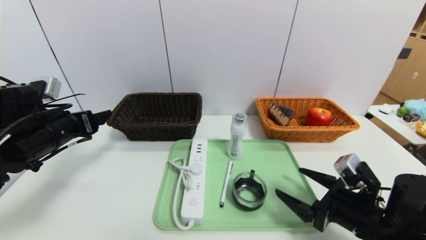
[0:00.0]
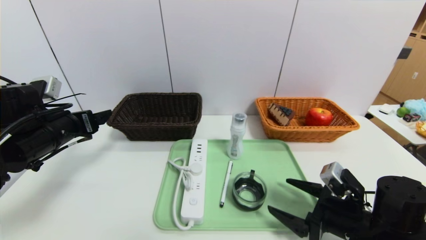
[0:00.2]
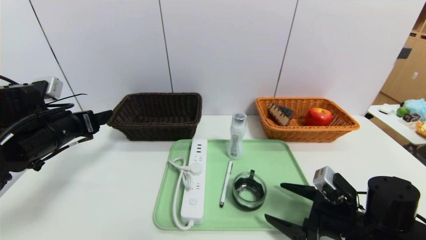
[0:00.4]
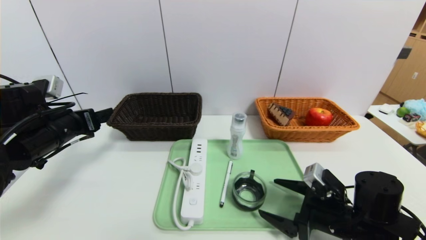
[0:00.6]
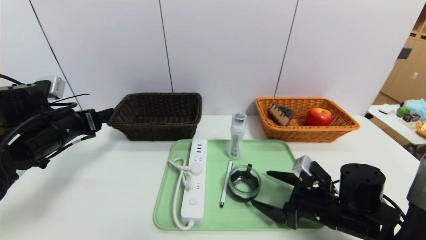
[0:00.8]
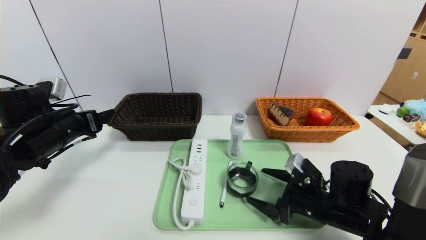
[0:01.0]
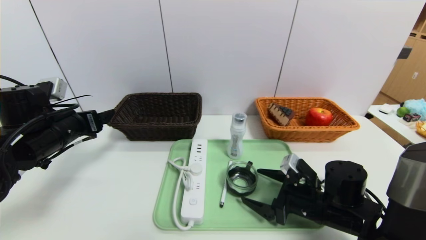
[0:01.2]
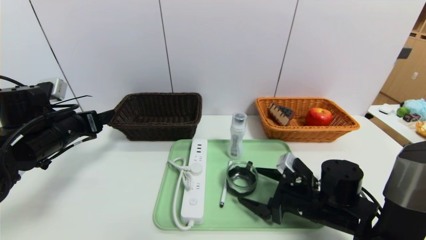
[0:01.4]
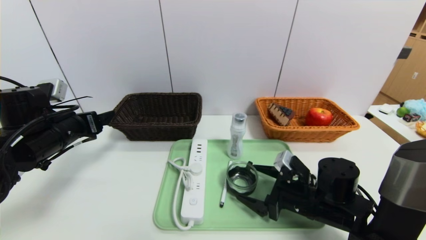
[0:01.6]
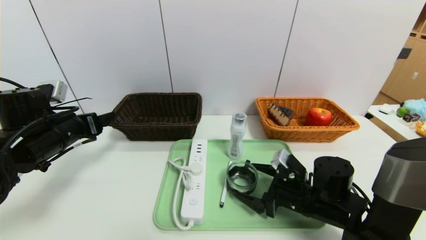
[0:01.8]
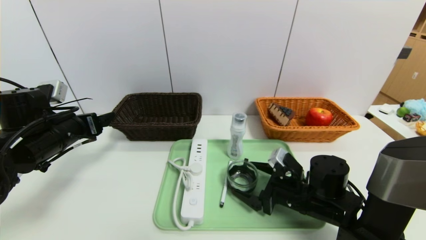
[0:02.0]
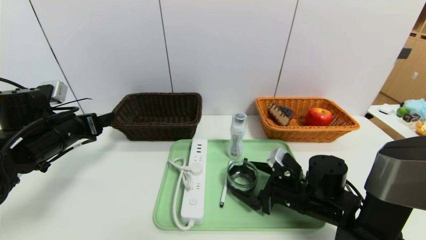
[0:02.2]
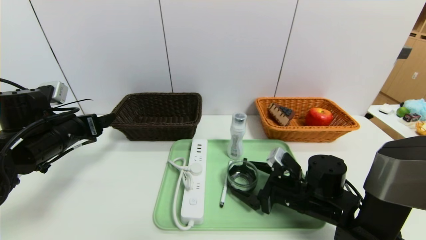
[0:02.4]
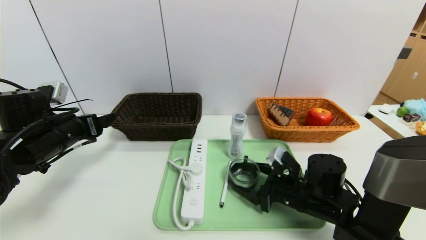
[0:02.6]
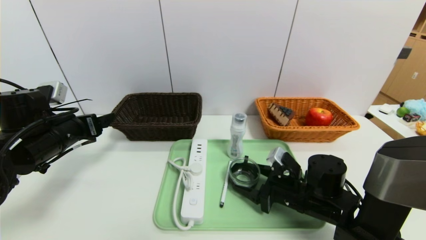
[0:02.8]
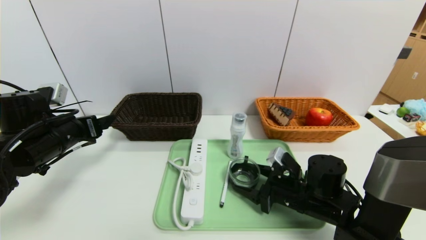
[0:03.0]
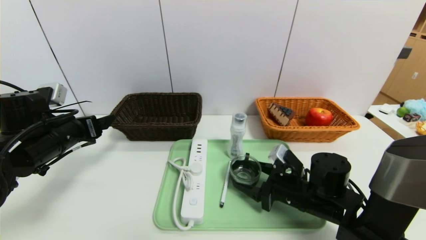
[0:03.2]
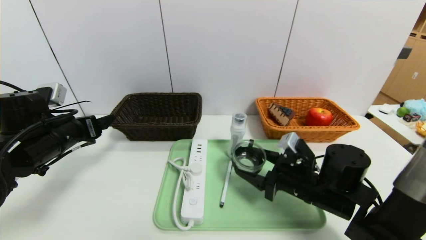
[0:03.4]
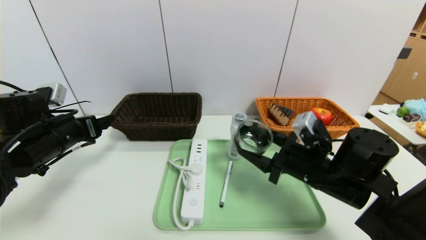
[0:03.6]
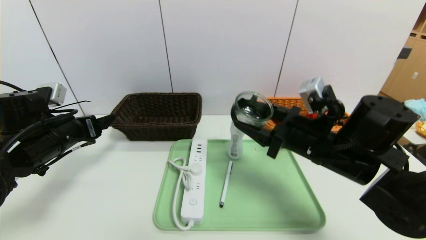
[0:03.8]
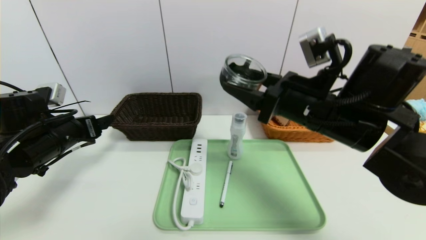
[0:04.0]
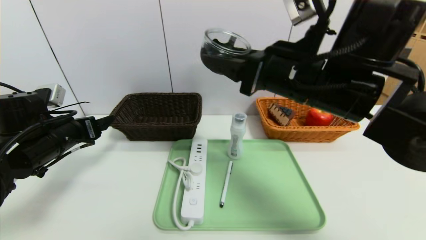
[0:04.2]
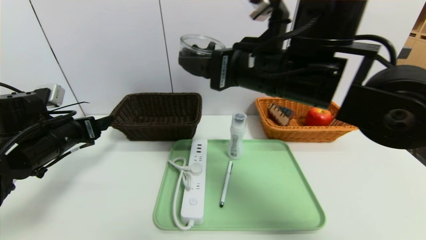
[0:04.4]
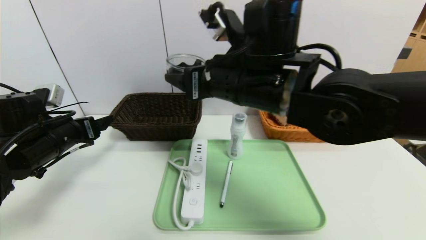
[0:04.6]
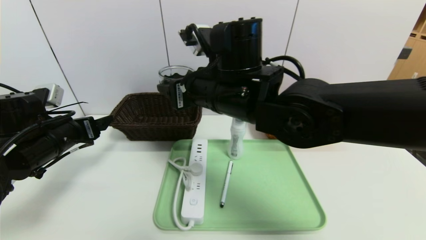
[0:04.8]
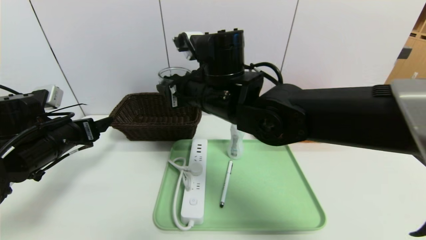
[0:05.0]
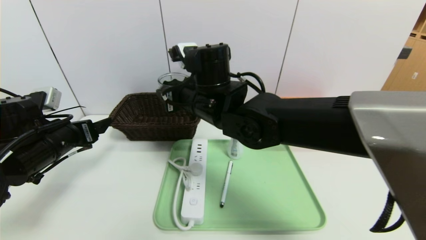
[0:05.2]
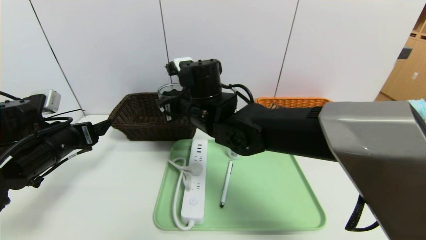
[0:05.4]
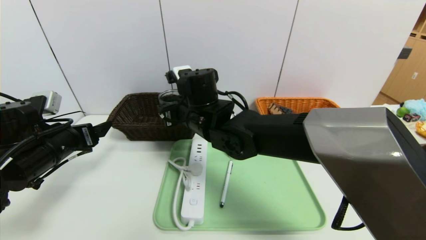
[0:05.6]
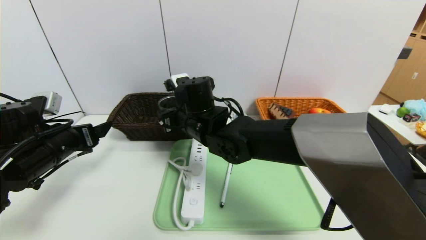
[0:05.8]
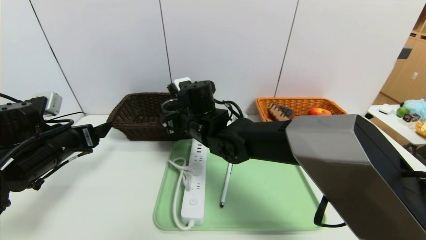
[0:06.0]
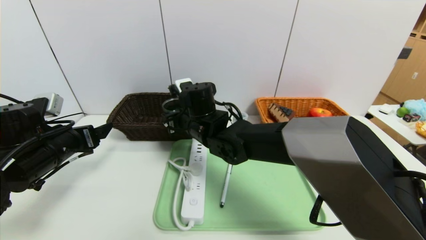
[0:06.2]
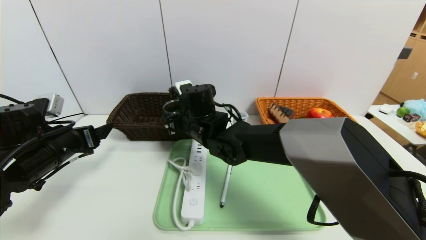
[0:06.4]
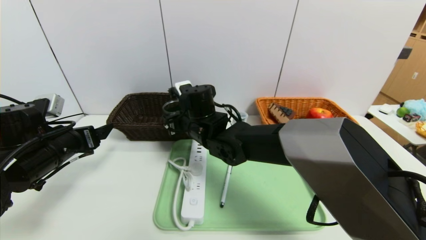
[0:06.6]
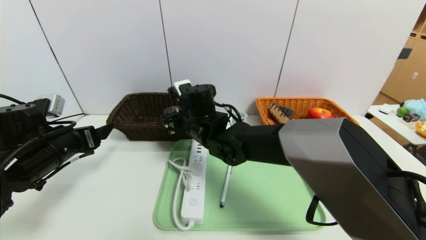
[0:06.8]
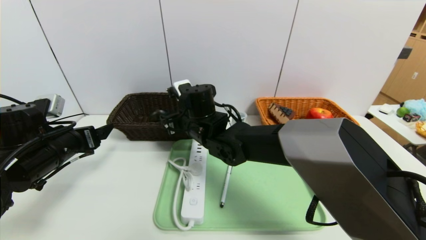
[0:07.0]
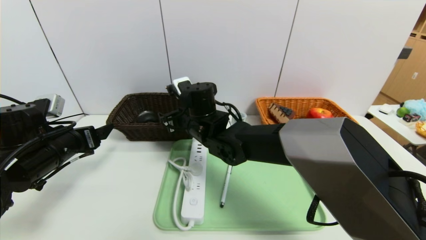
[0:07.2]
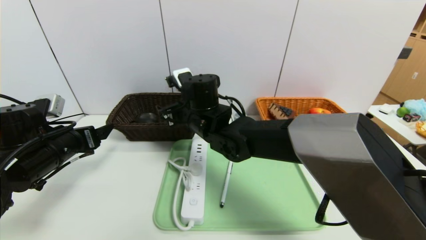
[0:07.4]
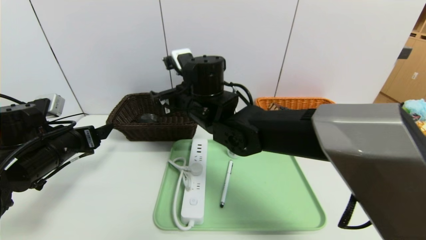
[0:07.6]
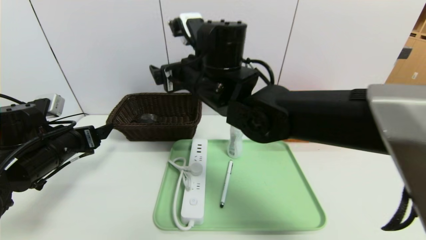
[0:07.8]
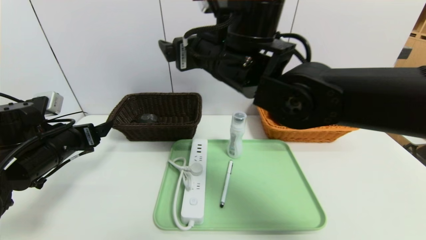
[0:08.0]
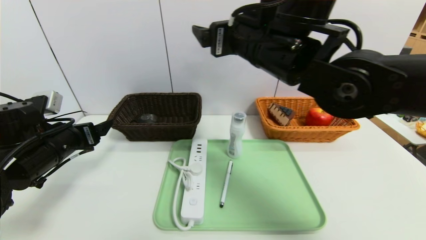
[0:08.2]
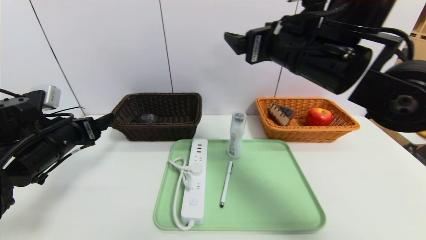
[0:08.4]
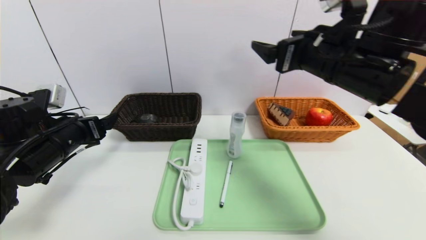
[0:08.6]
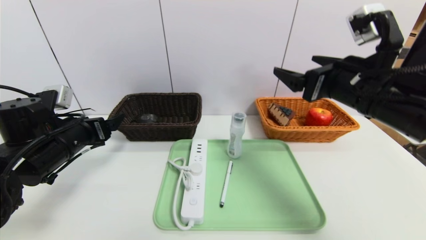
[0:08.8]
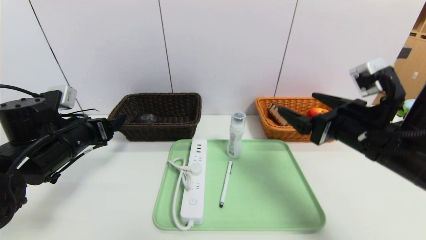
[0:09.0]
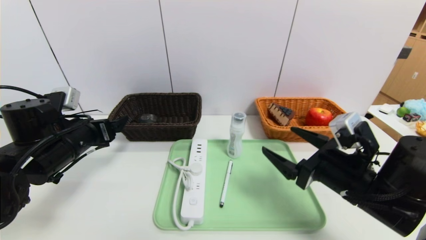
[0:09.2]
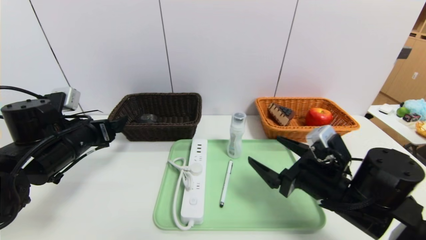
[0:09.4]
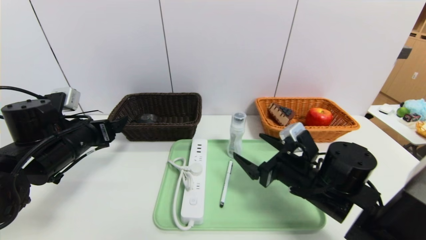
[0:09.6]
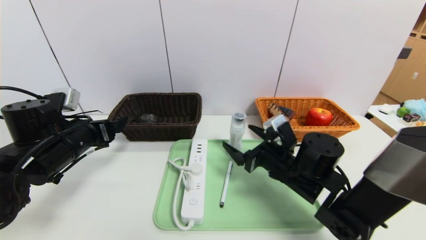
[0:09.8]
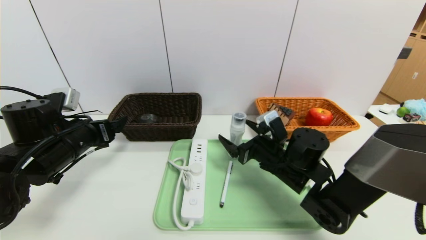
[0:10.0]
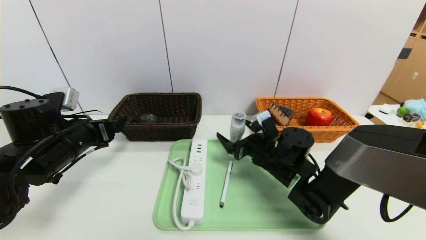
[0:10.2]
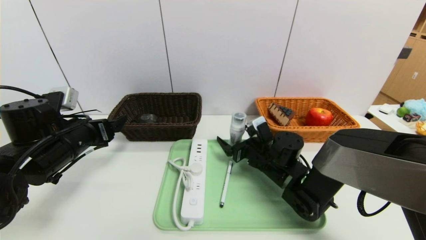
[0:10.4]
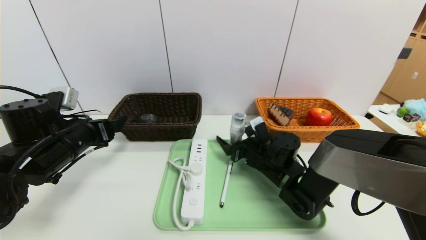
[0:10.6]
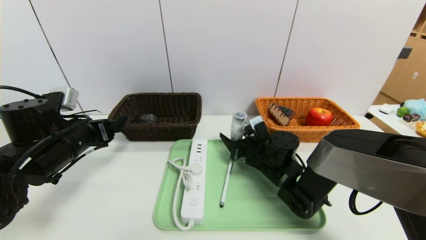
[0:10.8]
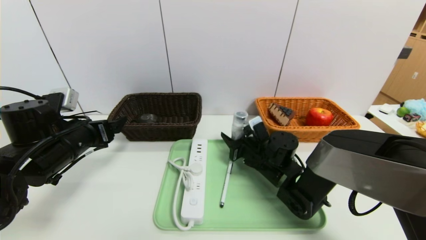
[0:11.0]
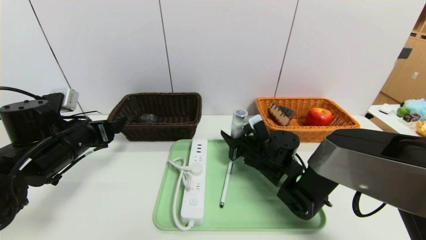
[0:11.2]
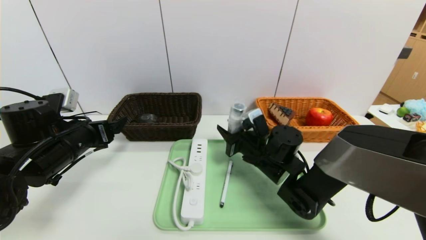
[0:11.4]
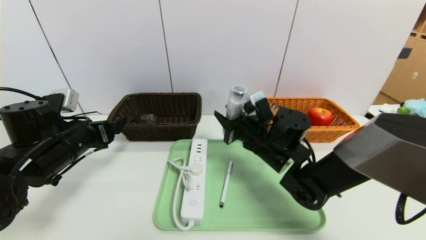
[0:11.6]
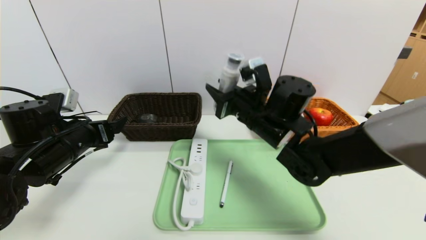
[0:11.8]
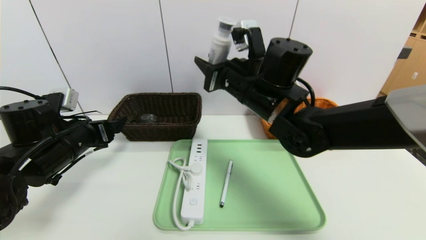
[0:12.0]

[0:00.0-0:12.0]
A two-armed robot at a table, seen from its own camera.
Task of the whole recording: place the food in the right basket with the right gripper, and place the non food items in the left basket with the left gripper.
0:00.0 to 0:01.6: The right gripper heads forward and to the left, covering approximately 10 cm.
0:01.6 to 0:03.0: The right gripper closes up.
0:03.0 to 0:04.4: The right gripper heads upward, covering some 25 cm.
0:04.4 to 0:06.0: The right gripper moves downward, to the left and forward, about 20 cm.
0:06.0 to 0:07.6: The right gripper goes approximately 5 cm upward, and opens its fingers.
0:07.6 to 0:09.0: The right gripper shifts about 30 cm to the right and backward.
0:09.0 to 0:10.4: The right gripper goes about 20 cm downward, forward and to the left.
0:10.4 to 0:12.0: The right gripper is displaced upward by approximately 20 cm, and closes.

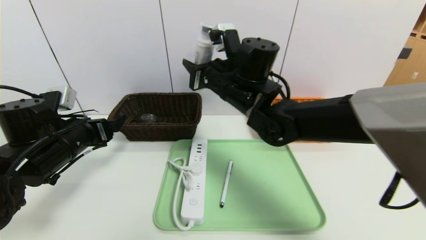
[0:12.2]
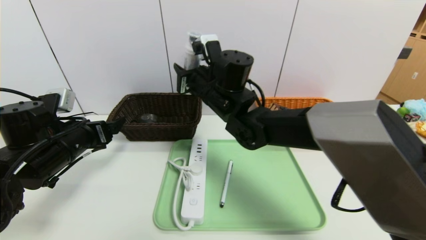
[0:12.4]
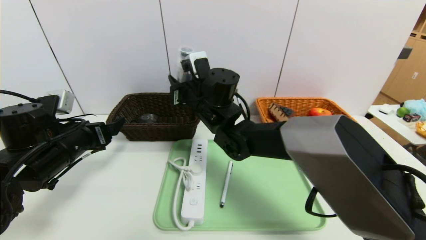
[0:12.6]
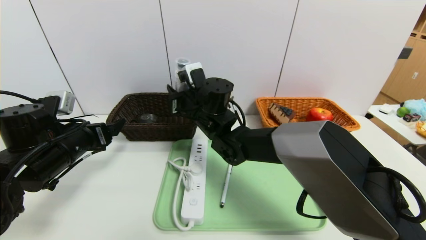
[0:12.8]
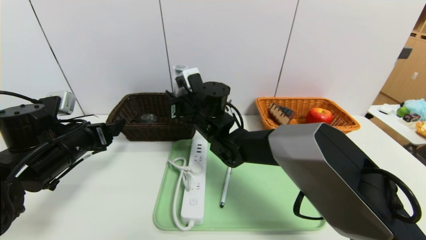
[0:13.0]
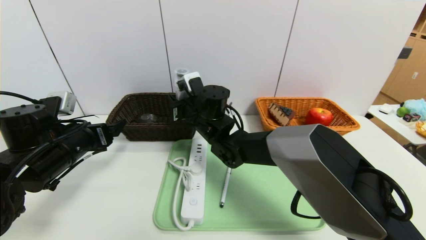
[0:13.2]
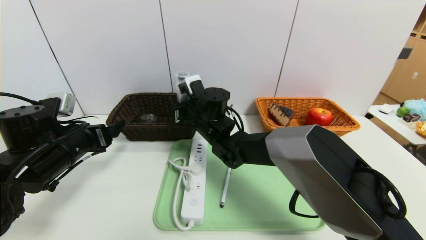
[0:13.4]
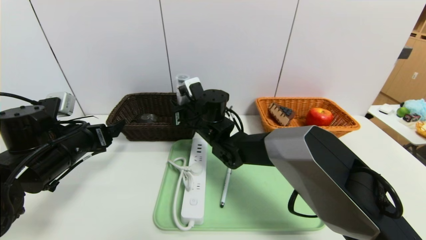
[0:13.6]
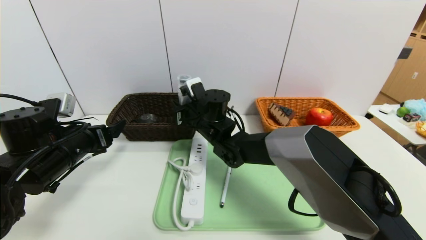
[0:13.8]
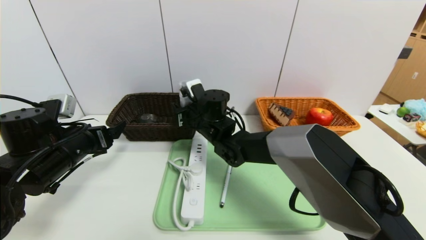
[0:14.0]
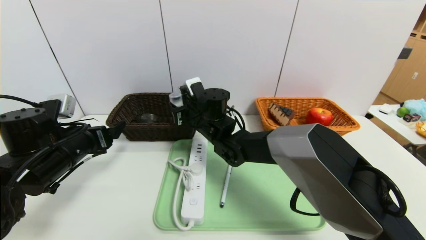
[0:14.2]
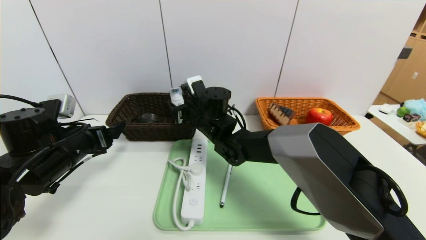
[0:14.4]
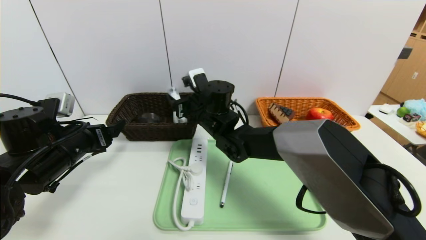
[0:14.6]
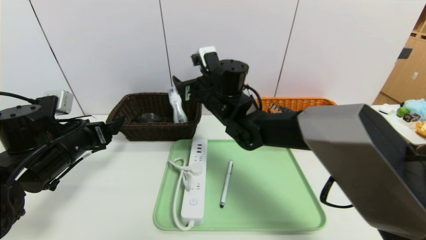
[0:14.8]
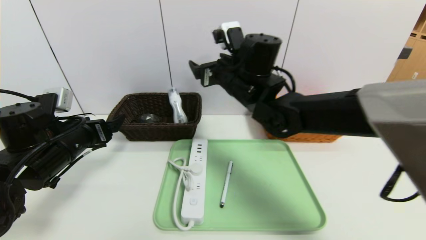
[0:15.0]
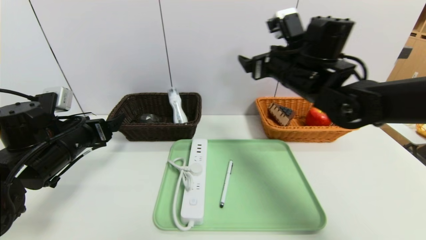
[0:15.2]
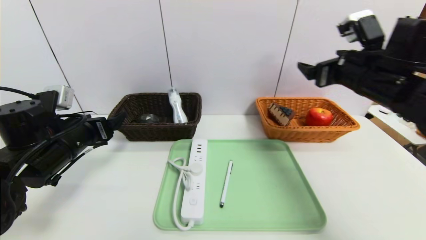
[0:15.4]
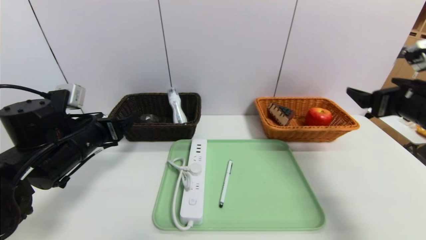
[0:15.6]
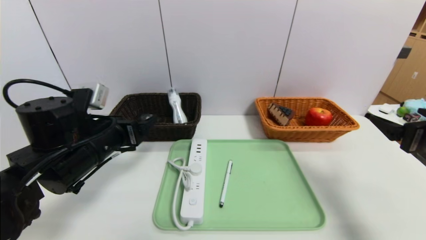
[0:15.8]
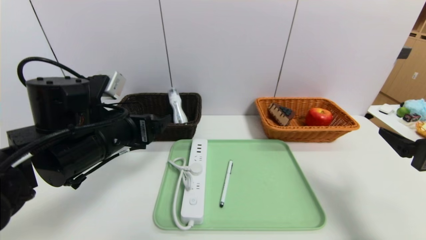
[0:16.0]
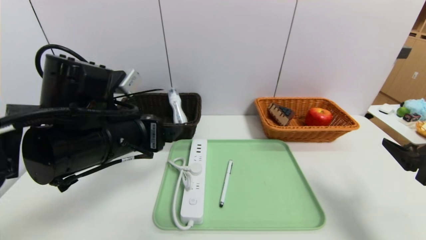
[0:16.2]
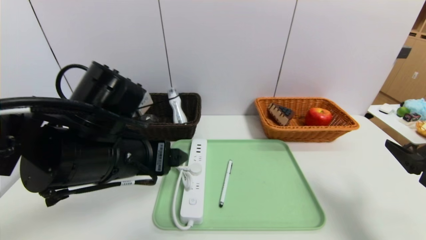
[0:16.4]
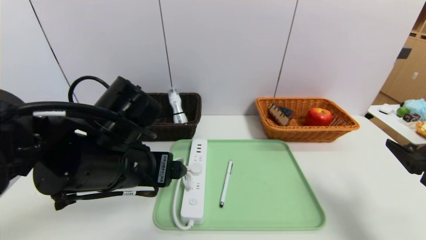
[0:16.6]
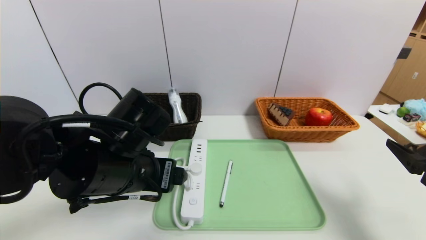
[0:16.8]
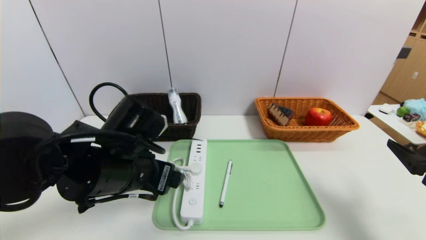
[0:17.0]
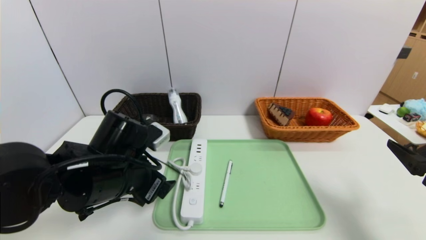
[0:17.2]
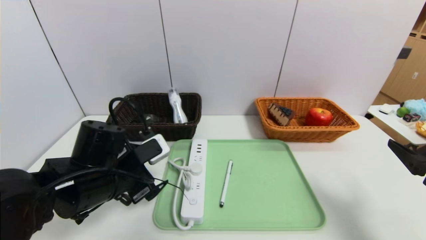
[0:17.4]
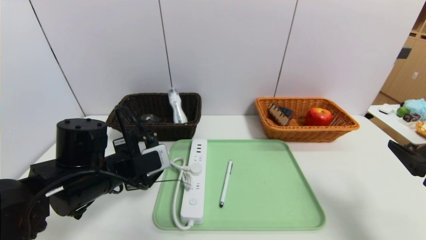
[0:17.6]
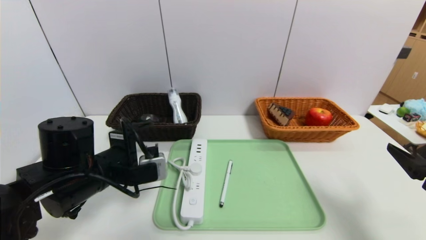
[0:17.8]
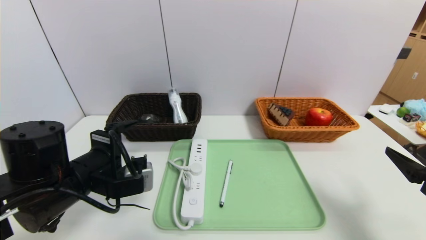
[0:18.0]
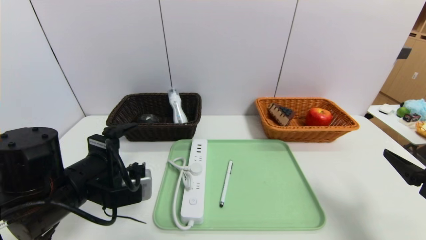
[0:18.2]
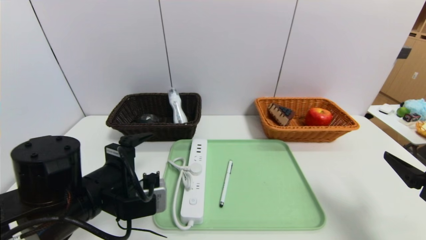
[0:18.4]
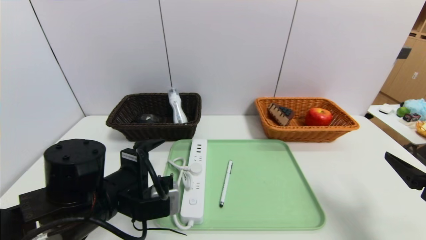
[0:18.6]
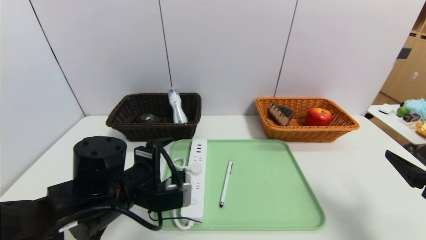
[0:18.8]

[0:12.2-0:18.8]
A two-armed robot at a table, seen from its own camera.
Task of the whole recording: place the food in the right basket with the right gripper, and place the non food items in the left basket with the left gripper.
0:12.2 to 0:13.8: The right gripper is displaced downward and to the left by about 10 cm.
0:13.8 to 0:15.4: The right gripper is displaced to the right and upward by roughly 35 cm, and opens up.
0:15.4 to 0:17.2: The left gripper goes some 10 cm to the right; the right gripper goes about 20 cm backward and downward.
